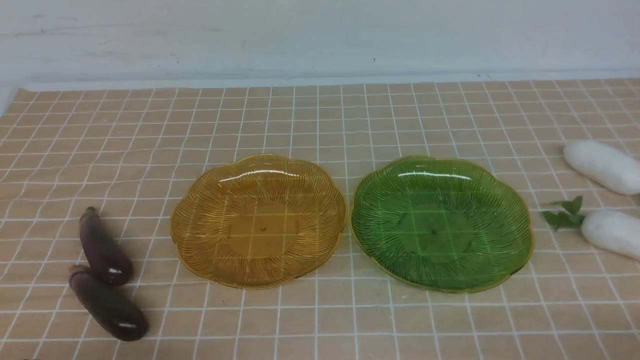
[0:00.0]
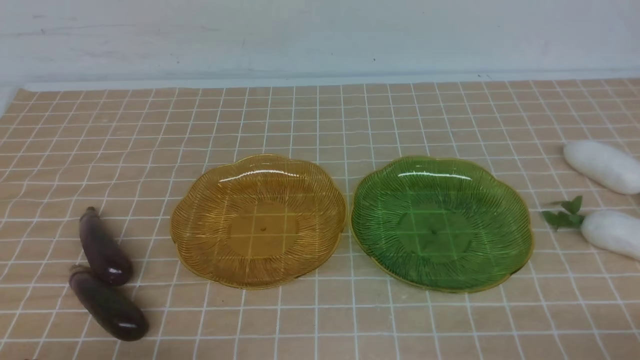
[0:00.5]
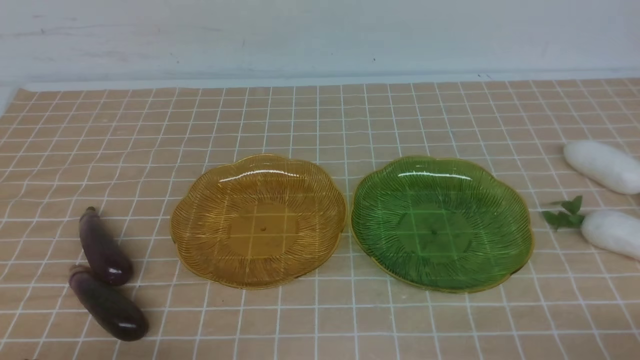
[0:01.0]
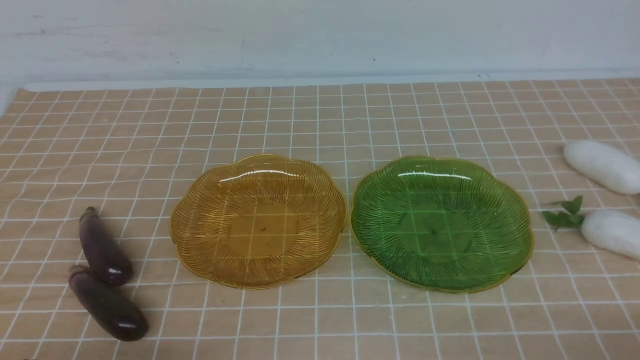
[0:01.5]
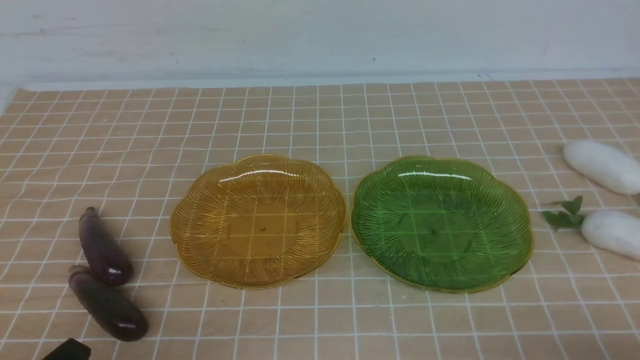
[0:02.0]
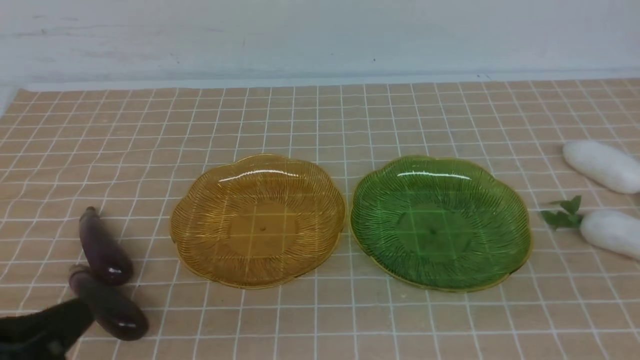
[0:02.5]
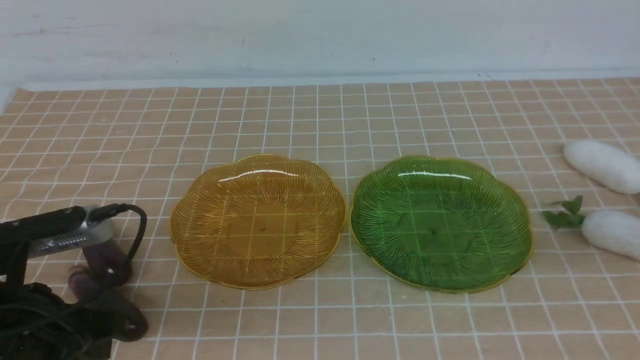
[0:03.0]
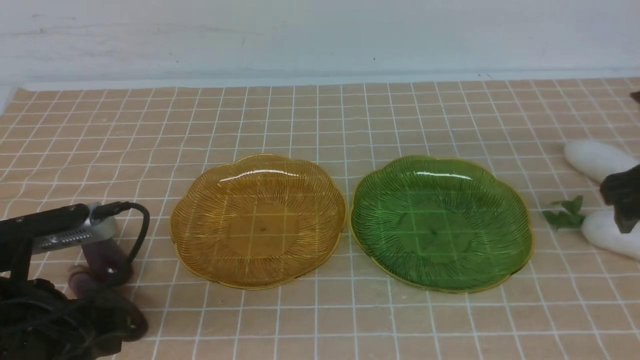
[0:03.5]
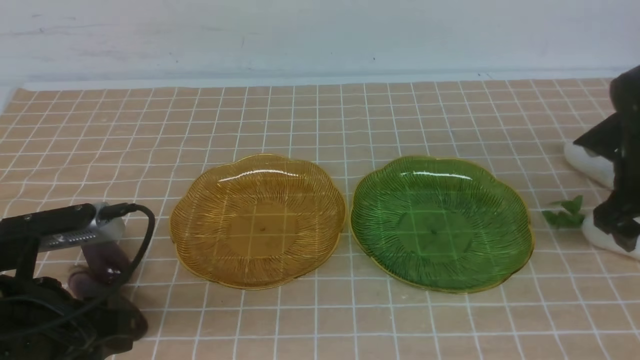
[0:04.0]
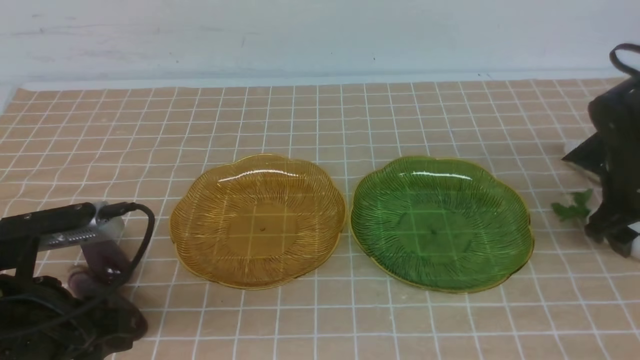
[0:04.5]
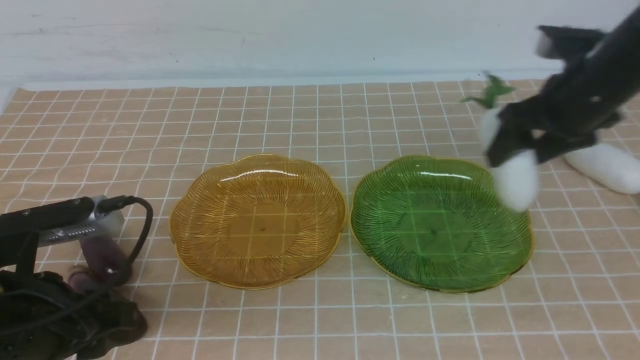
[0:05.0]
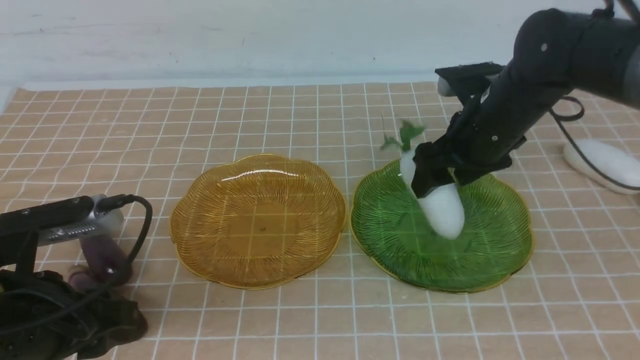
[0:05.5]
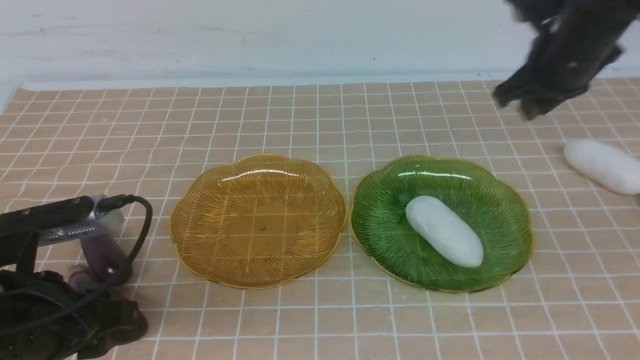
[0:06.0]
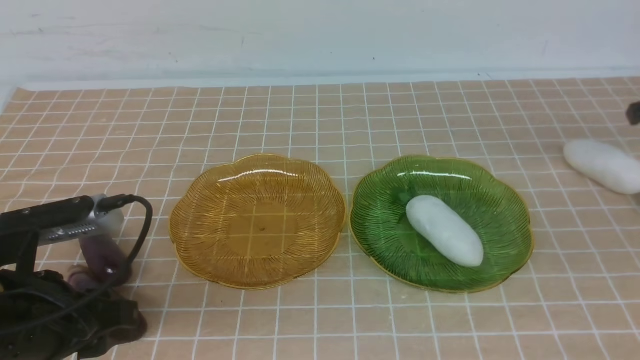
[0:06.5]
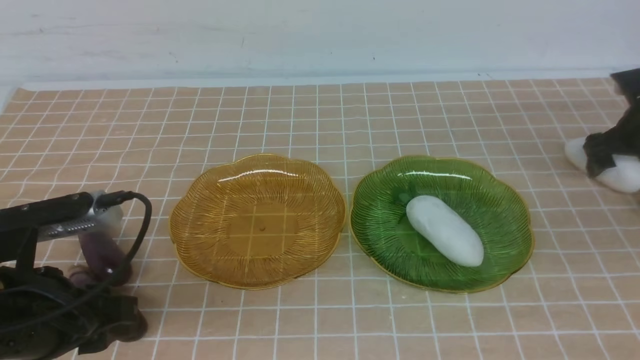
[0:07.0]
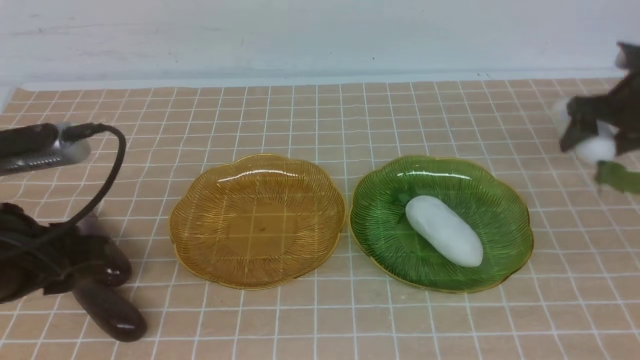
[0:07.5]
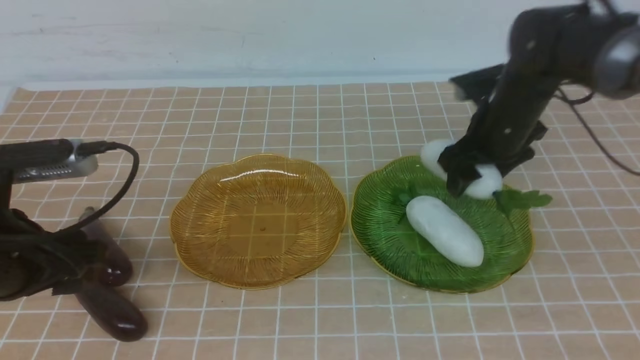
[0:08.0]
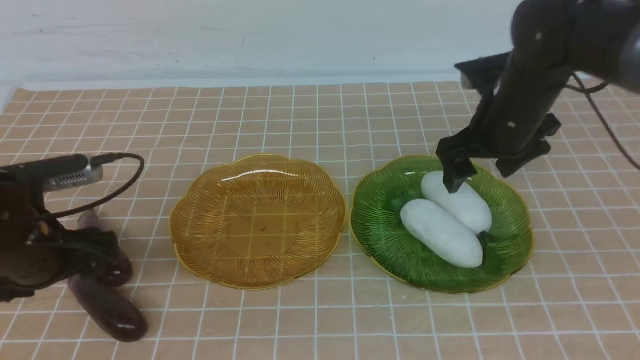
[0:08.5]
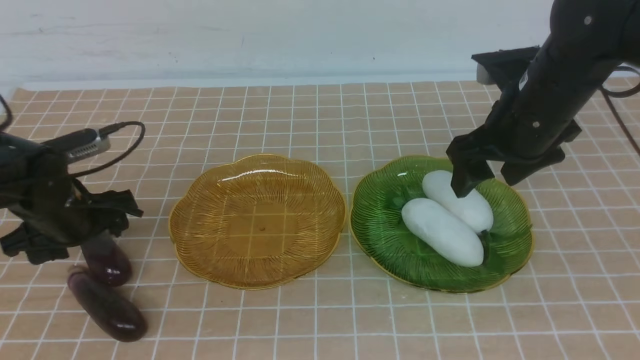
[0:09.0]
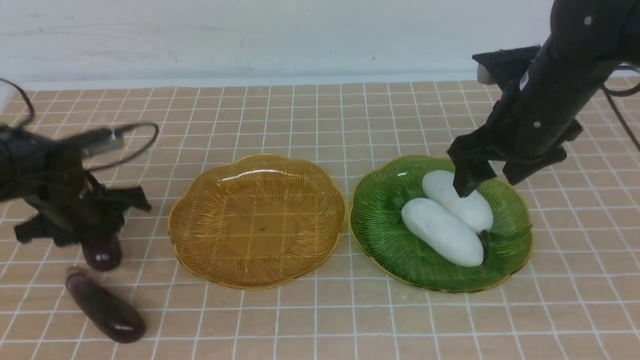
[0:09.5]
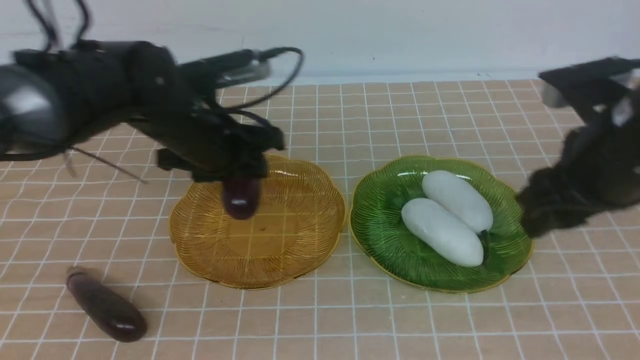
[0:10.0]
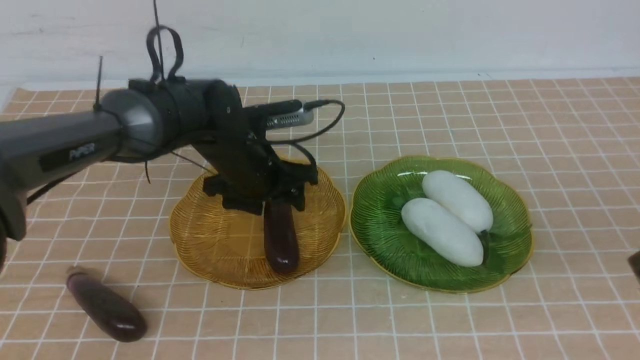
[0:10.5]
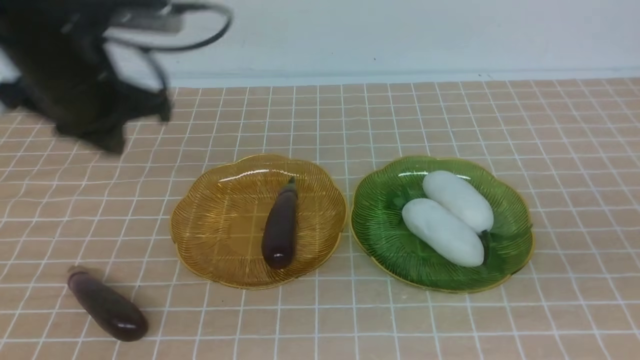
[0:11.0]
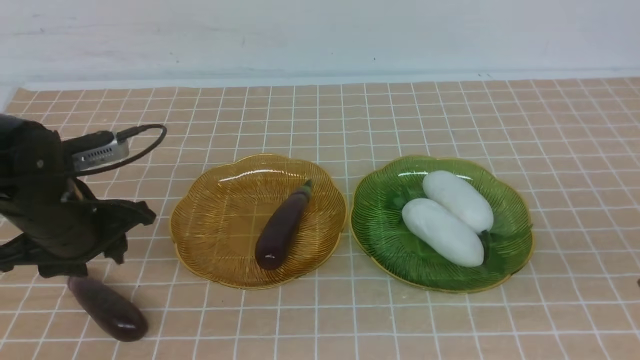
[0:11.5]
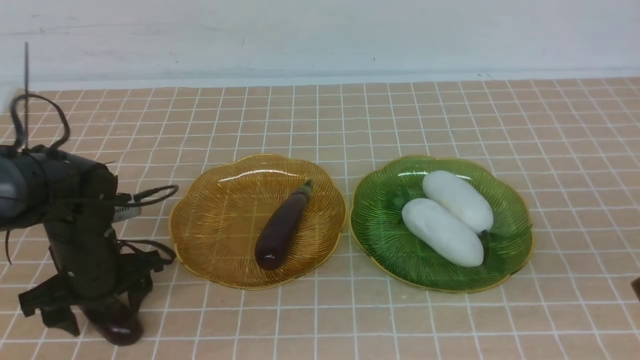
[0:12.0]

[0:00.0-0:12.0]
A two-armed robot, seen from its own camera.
Step, 0:00.0 to 0:08.0: use the right arm to grab a radish and put it into the right plate.
0:02.0 to 0:04.0: The left gripper is displaced forward by roughly 10 cm, and opens up; the right gripper heads forward, covering roughly 35 cm, and opens up.
0:04.0 to 0:06.0: The right gripper is displaced upward and forward by approximately 10 cm, reaches roughly 15 cm to the left, then returns, and closes and opens again.
0:06.0 to 0:08.0: The left gripper goes roughly 5 cm forward, and opens, while the right gripper heads to the left, covering roughly 20 cm.
0:08.0 to 0:10.0: The left gripper heads forward and to the right, covering some 20 cm; the right gripper shifts some 20 cm backward and upward, and closes its fingers.
0:10.0 to 0:12.0: The right gripper heads backward, covering roughly 10 cm, and closes its fingers; the left gripper shifts approximately 15 cm to the left, downward and backward, and closes, then reopens.

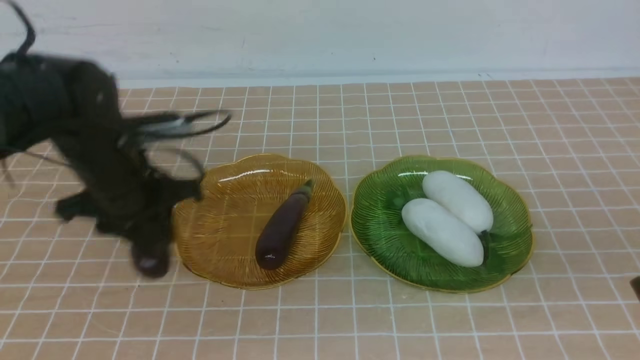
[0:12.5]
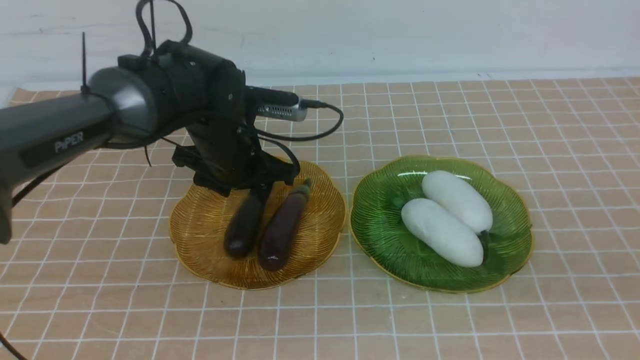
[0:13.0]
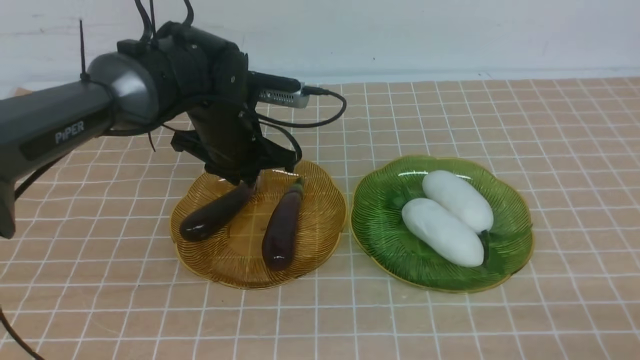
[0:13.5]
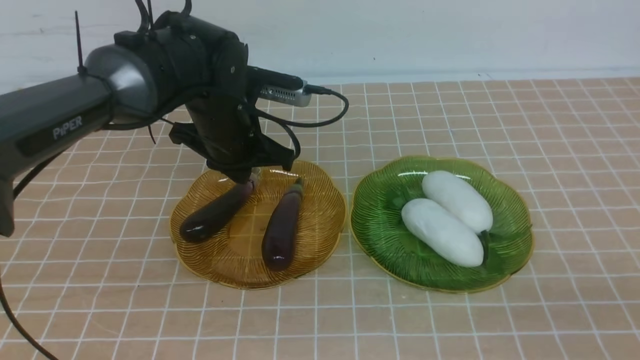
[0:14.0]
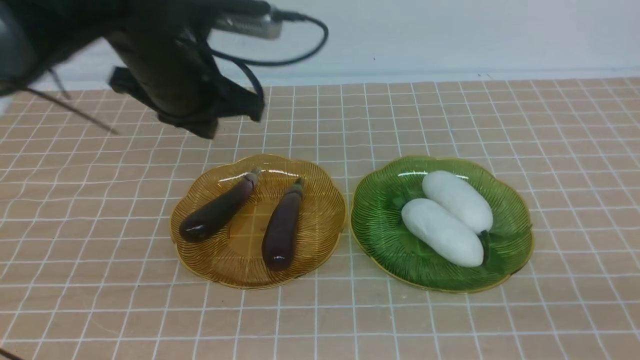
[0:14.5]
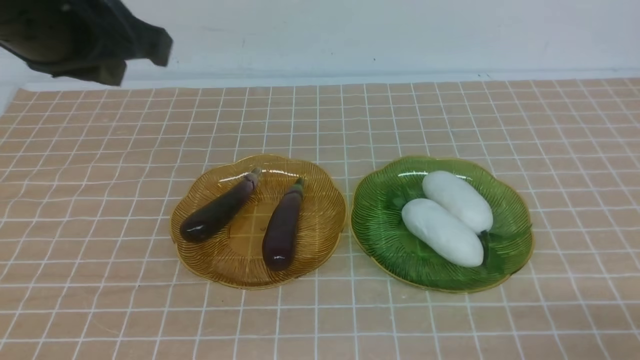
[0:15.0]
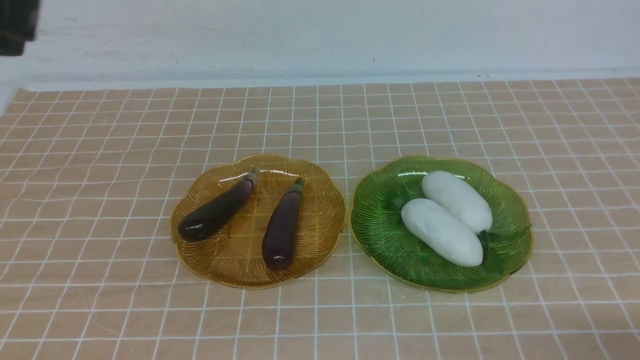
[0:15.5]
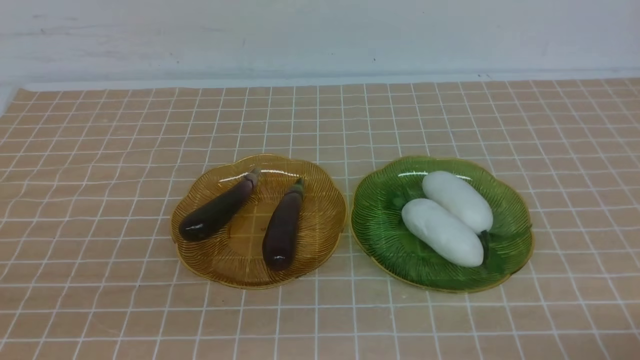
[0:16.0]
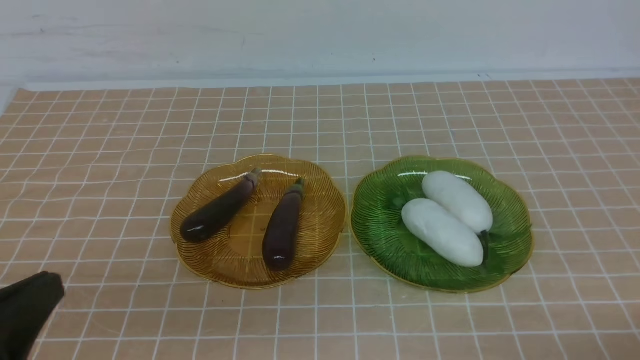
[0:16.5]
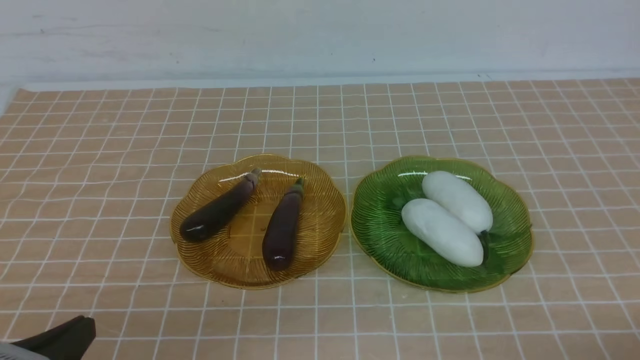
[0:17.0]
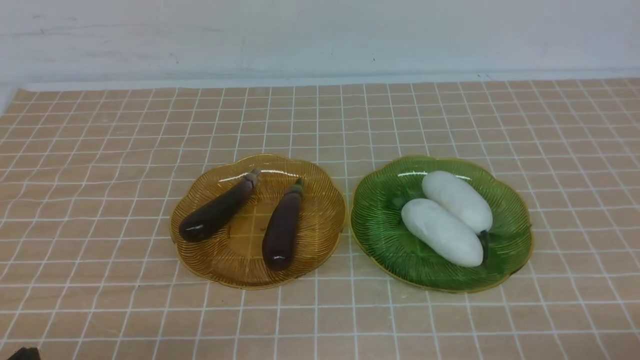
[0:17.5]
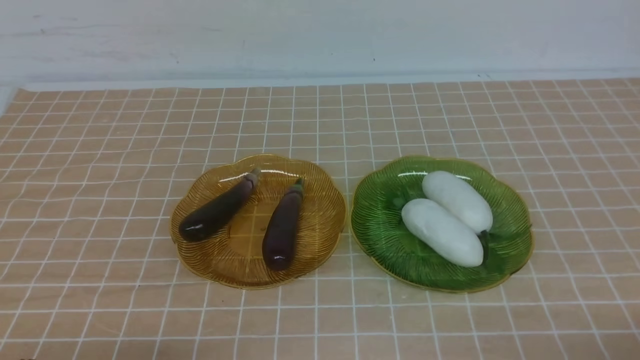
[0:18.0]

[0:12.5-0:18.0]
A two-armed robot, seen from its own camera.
0:12.5 to 0:14.5: The left gripper travels upward and backward by approximately 20 cm, and closes its fingers. Meanwhile the right gripper travels downward and backward by some 15 cm.
0:14.5 to 0:16.0: The right gripper travels downward by about 5 cm; the left gripper moves backward and downward, about 25 cm.

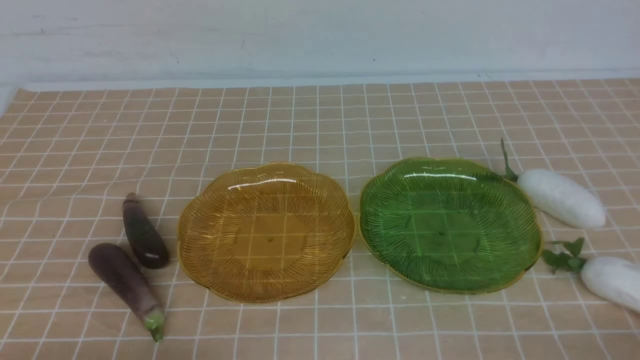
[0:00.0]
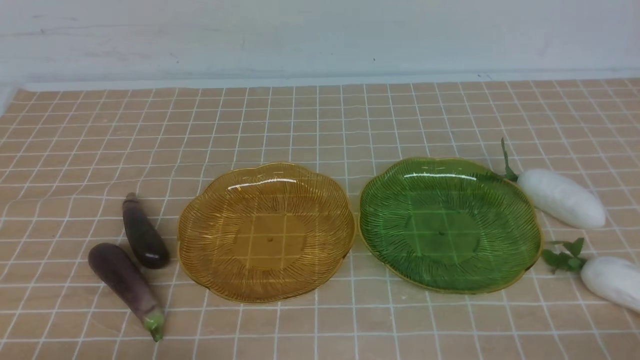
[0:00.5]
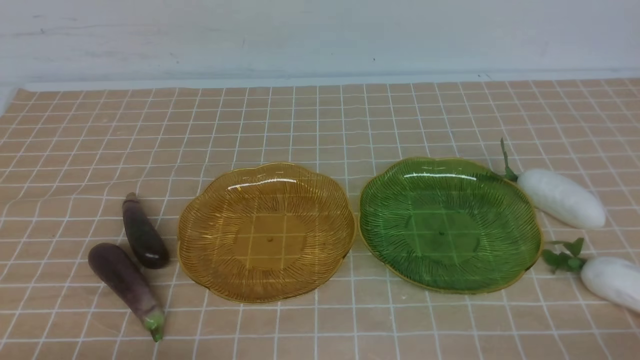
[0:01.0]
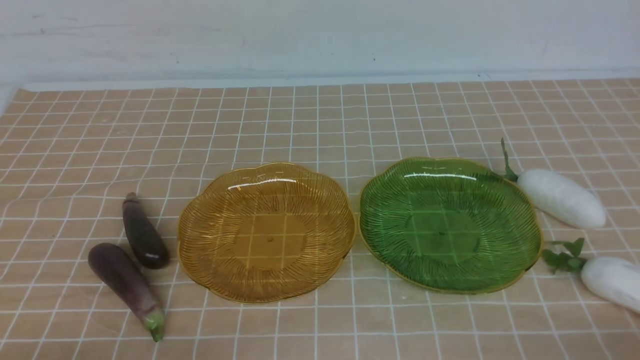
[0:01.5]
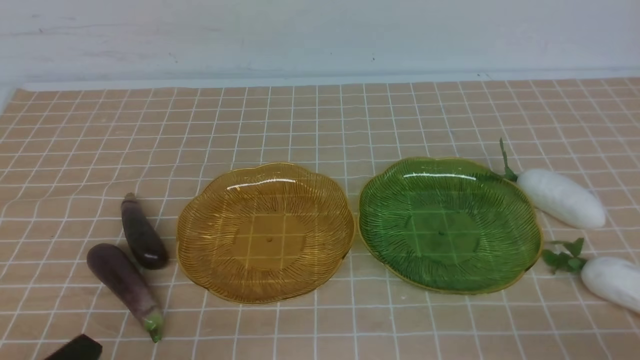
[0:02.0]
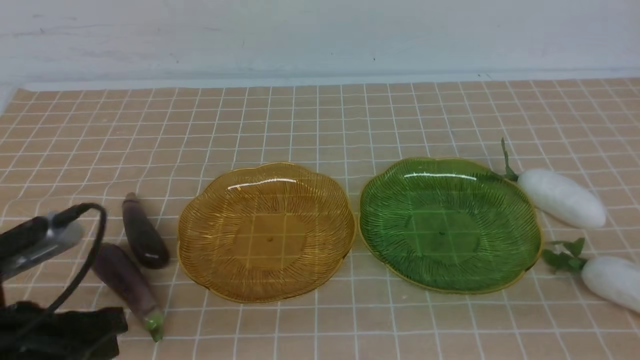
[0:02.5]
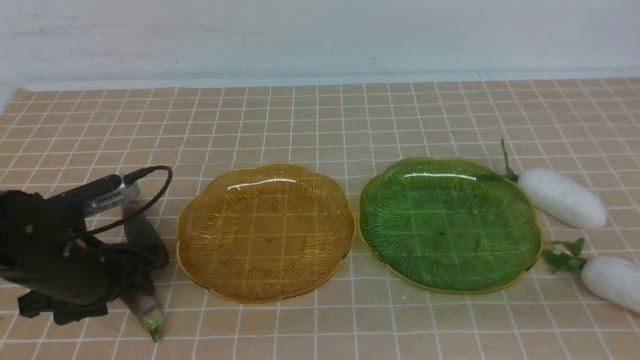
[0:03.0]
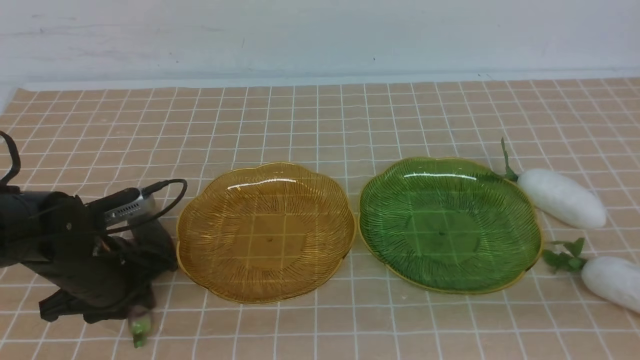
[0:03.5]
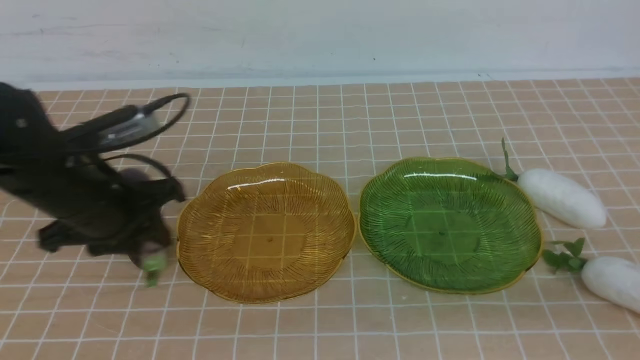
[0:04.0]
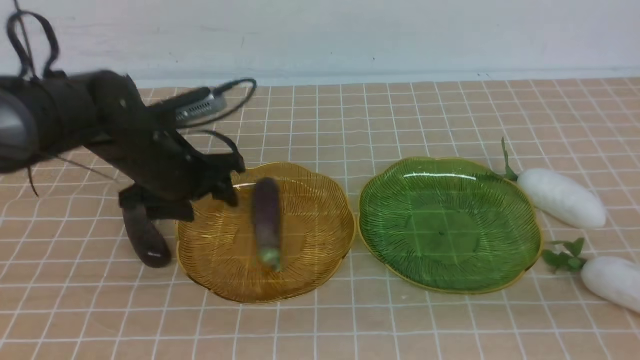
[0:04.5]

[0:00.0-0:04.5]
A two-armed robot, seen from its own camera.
0:02.0 to 0:04.5: The right gripper travels upward by about 10 cm. Meanwhile the left gripper goes approximately 30 cm forward, and opens.
